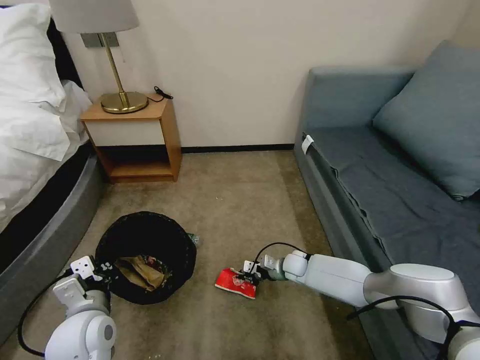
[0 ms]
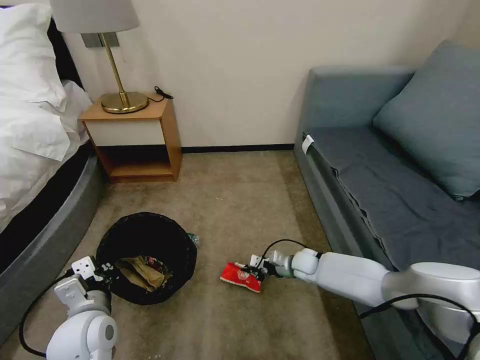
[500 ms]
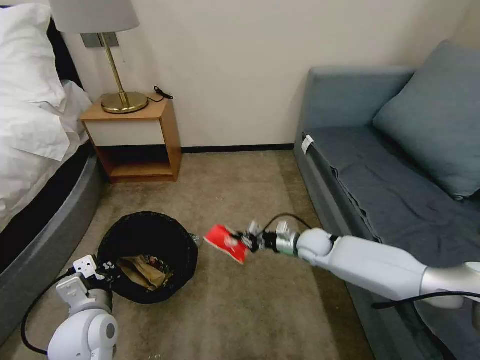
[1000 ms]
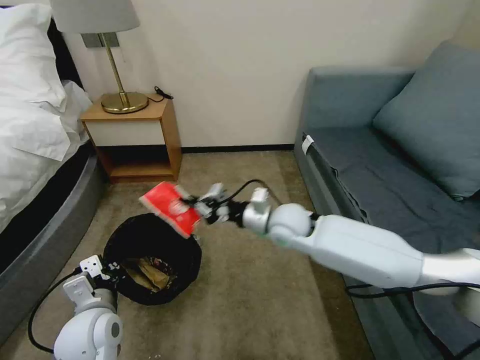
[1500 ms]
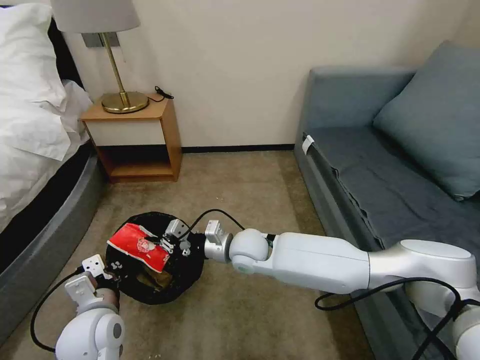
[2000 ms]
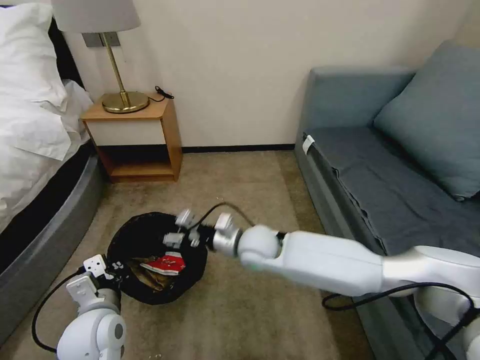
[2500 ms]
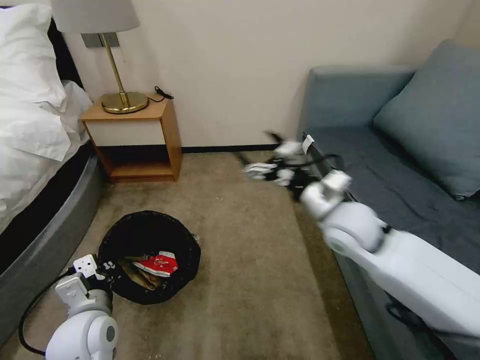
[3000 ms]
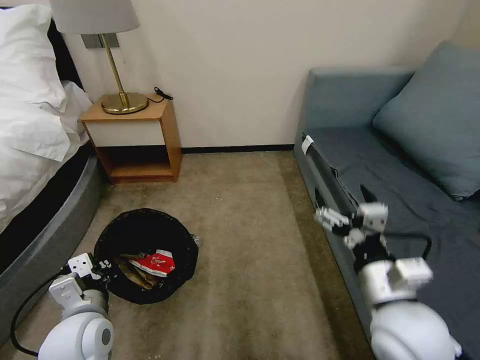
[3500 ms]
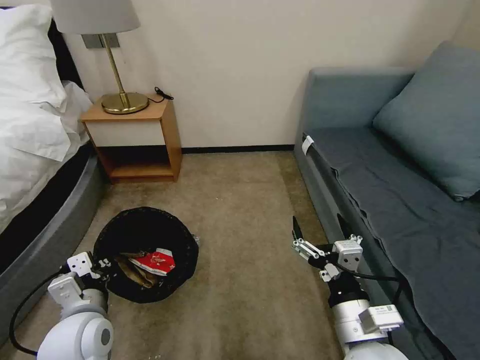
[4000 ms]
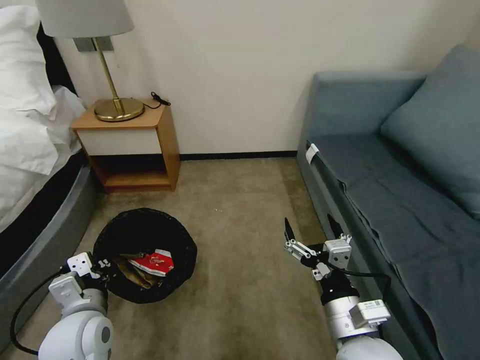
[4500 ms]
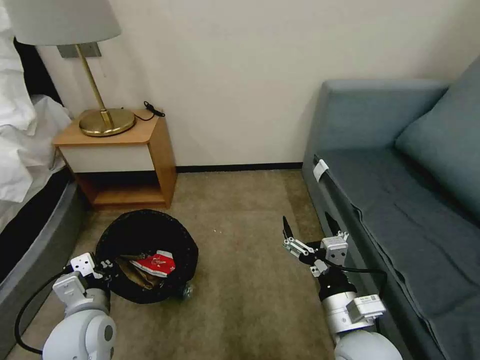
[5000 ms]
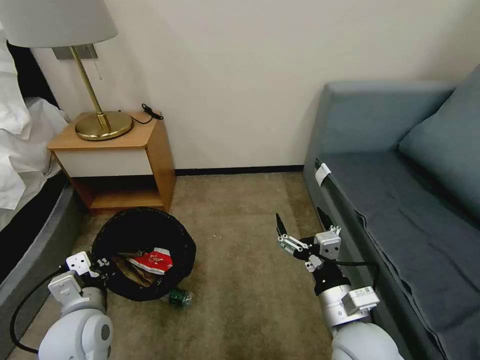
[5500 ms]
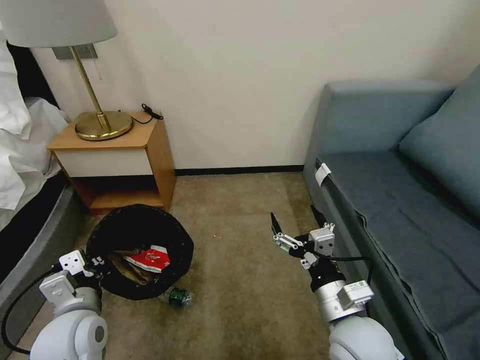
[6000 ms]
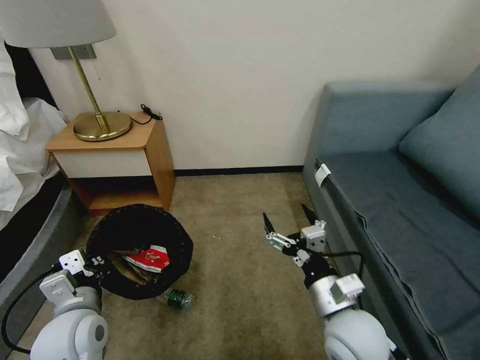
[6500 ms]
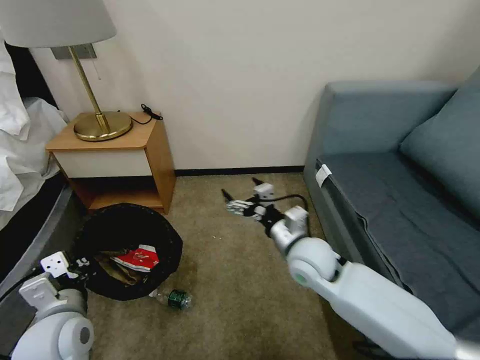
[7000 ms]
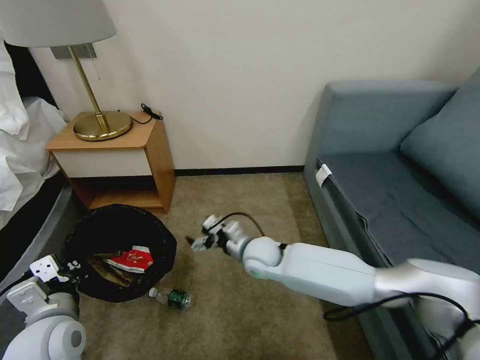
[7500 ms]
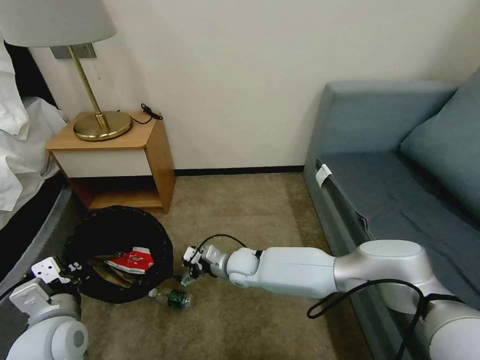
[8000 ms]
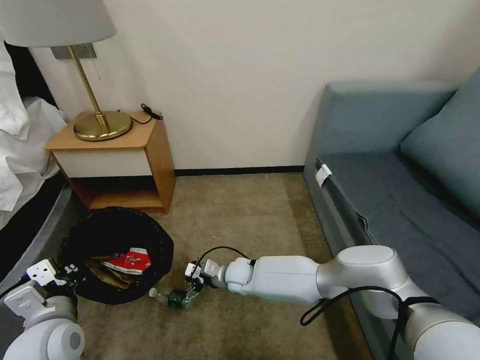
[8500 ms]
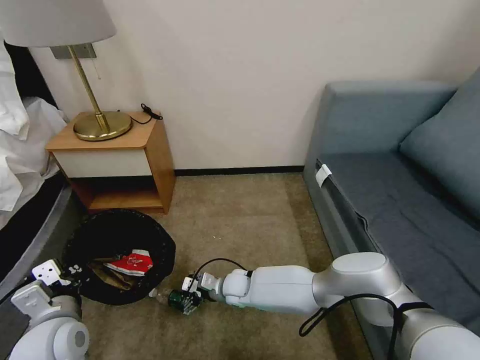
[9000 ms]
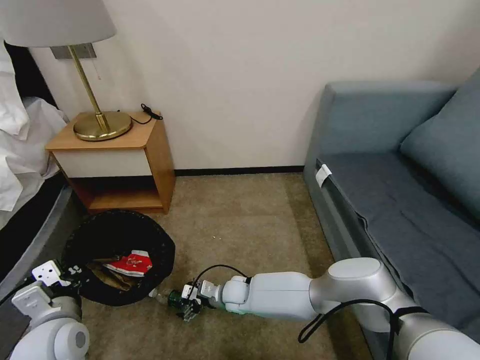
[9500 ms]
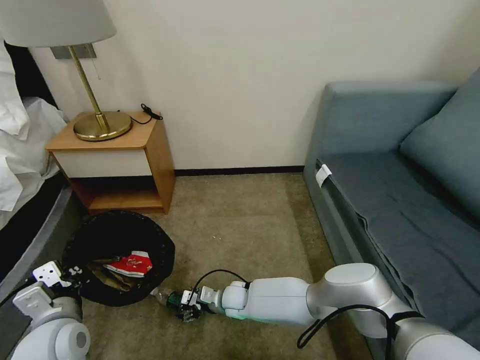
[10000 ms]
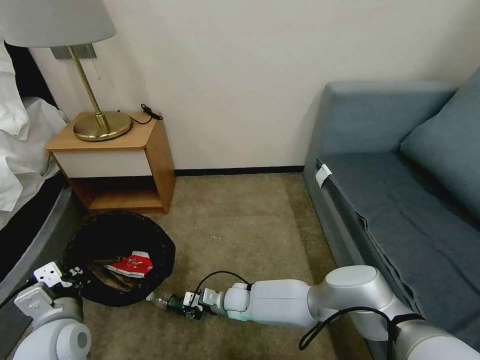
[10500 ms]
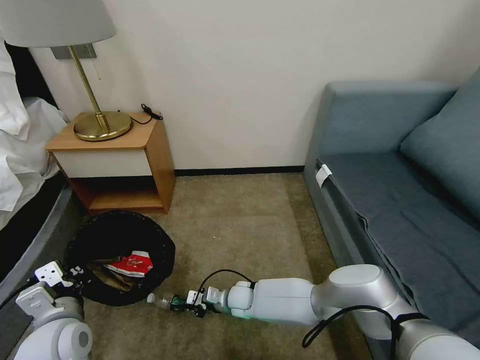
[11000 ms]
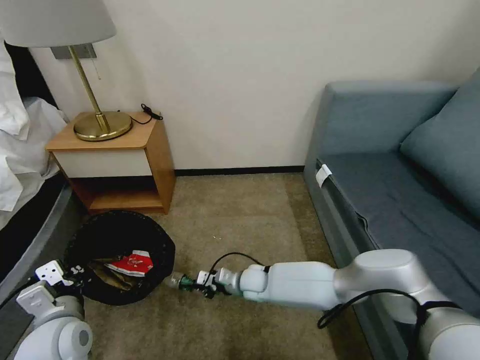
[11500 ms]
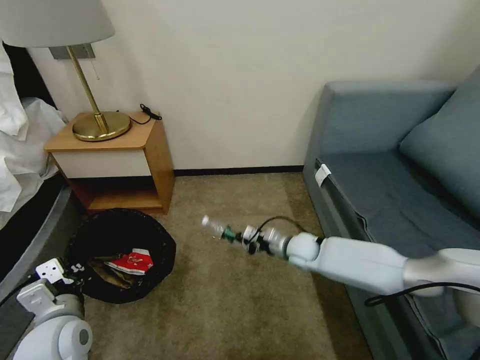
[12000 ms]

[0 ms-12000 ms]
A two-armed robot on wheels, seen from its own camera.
Task of the whole recording: Pick up the trash bin, then pick up the garbage on the floor and place it into the trash bin.
0 ms to 2000 ms: The right gripper heads upward and to the left, covering approximately 25 cm.
2000 ms to 4000 ms: The right gripper is displaced backward and to the right by about 30 cm, and opens up.
6000 ms to 8000 ms: The right gripper heads forward, to the left and downward, covering some 30 cm.
8000 ms to 10000 ms: The right gripper is displaced downward and backward by approximately 10 cm.
10000 ms to 12000 ms: The right gripper travels to the right, upward and forward by roughly 25 cm, and closes up.

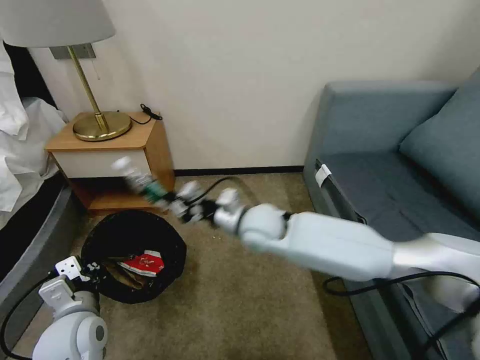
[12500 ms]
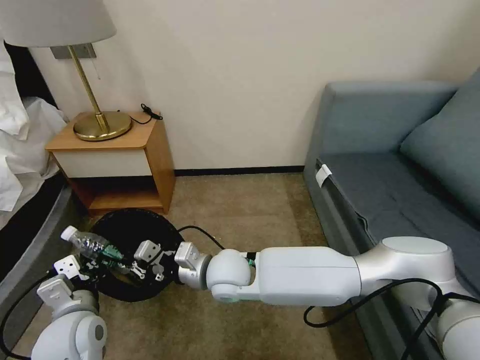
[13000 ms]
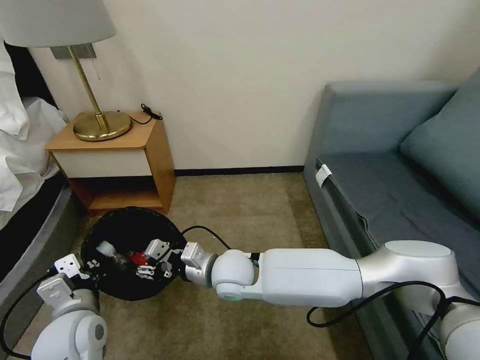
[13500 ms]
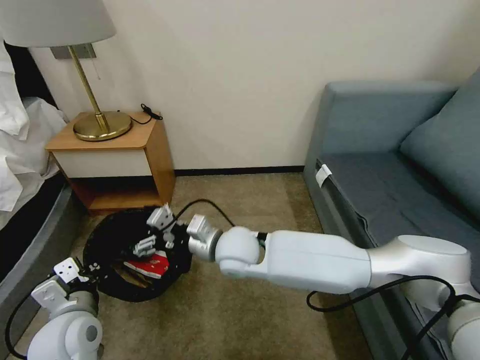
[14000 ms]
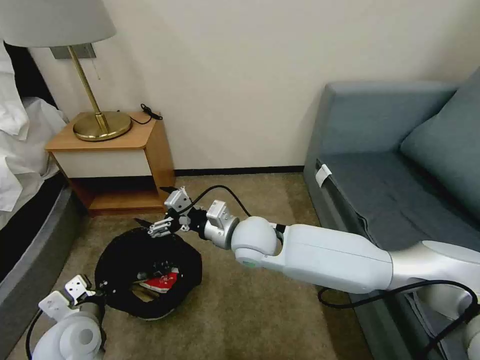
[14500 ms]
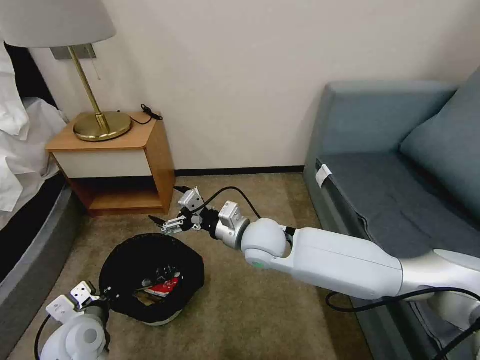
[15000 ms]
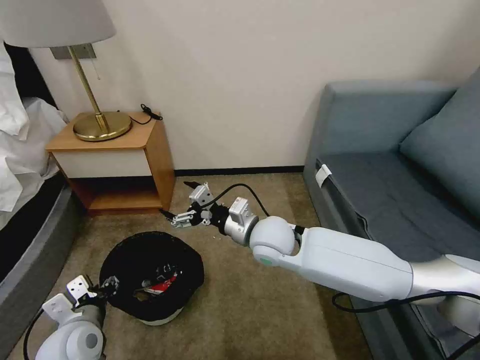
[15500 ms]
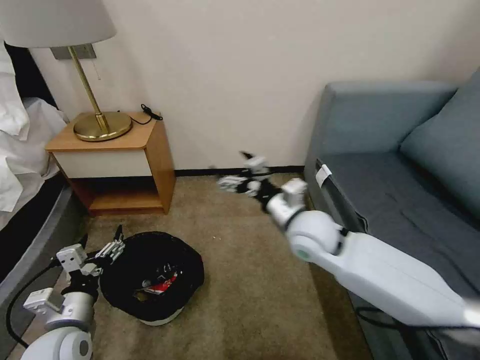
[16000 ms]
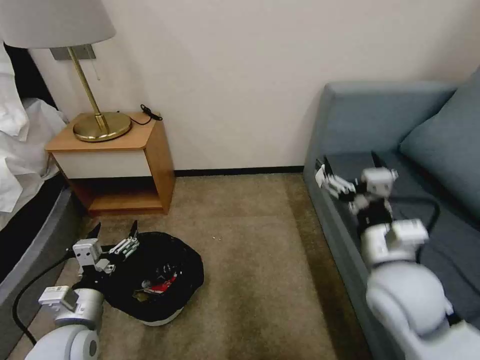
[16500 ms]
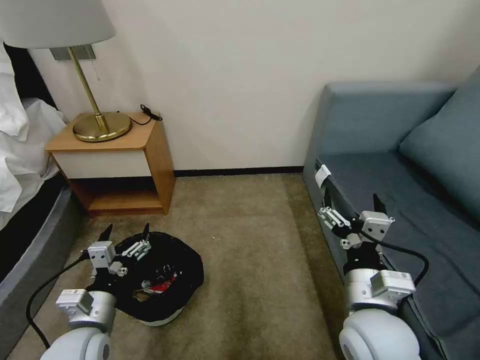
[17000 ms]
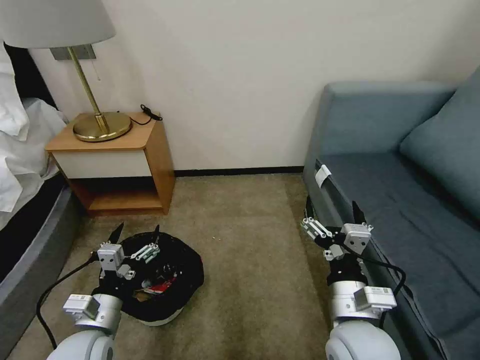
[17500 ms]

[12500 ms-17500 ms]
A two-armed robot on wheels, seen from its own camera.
Task of the whole recording: Pick up the trash bin, then pick up the garbage on the floor and place it into the trash bin.
12500 ms to 15000 ms: The left gripper changes place by about 5 cm. Meanwhile the right gripper opens up.
15000 ms to 17500 ms: The right gripper moves backward and to the right, some 25 cm. Meanwhile the left gripper opens its fingers.

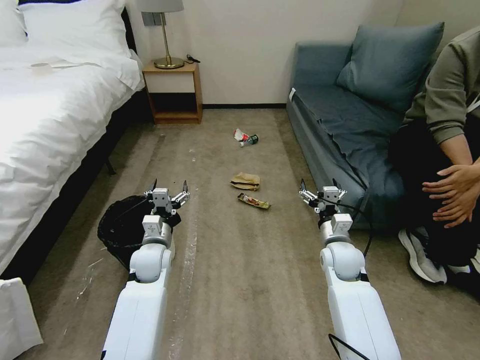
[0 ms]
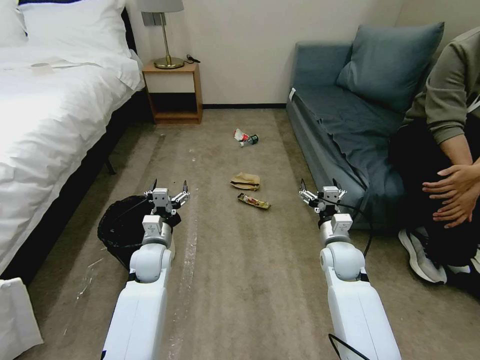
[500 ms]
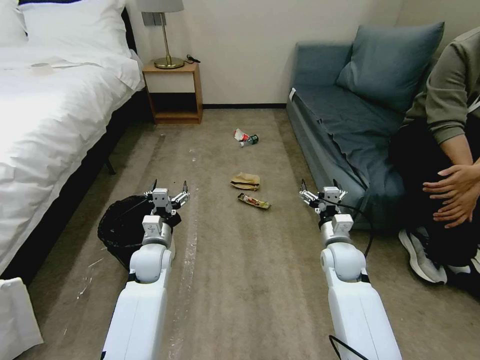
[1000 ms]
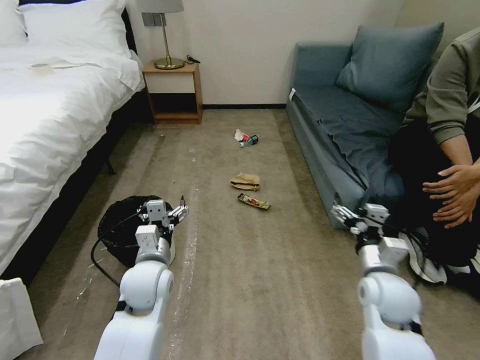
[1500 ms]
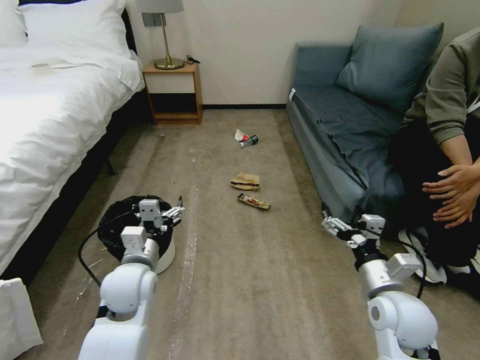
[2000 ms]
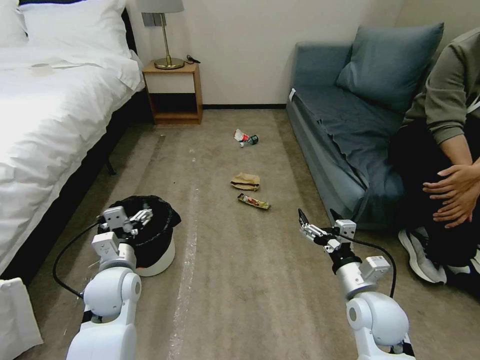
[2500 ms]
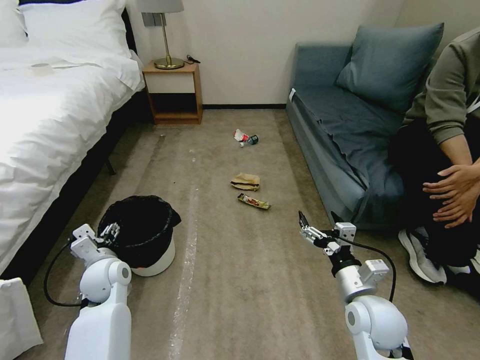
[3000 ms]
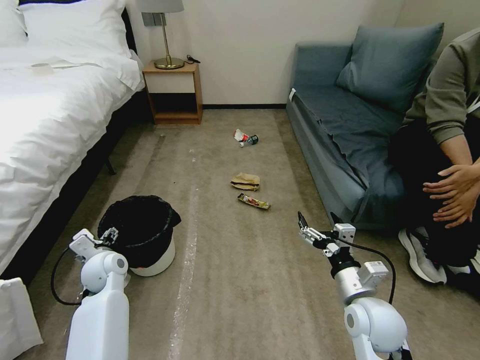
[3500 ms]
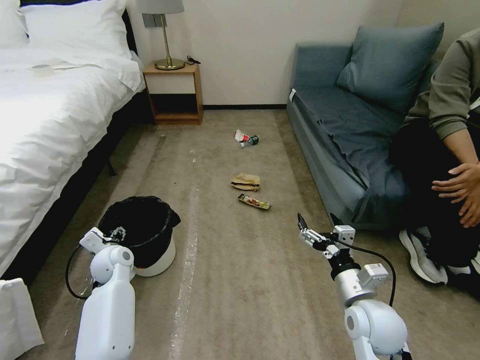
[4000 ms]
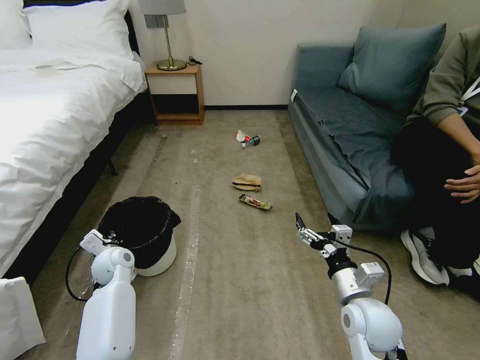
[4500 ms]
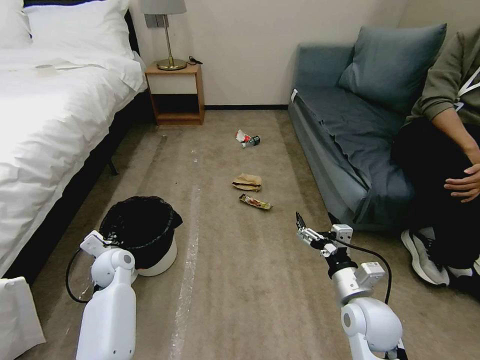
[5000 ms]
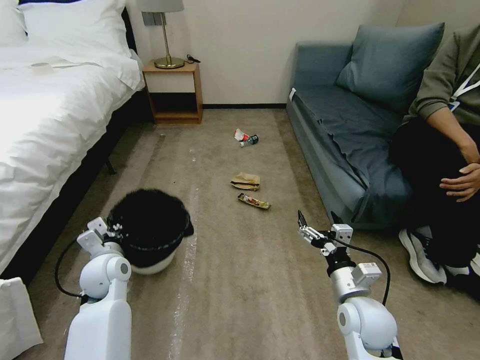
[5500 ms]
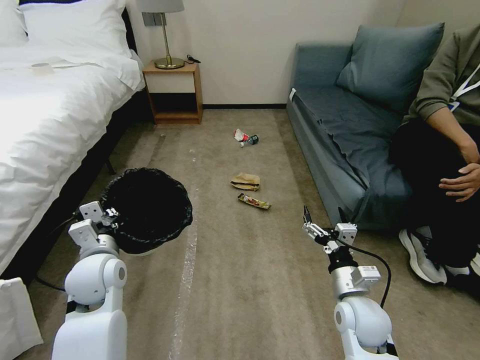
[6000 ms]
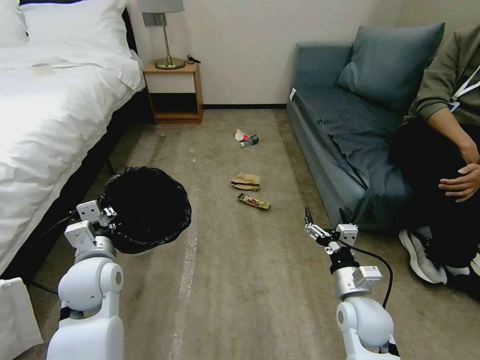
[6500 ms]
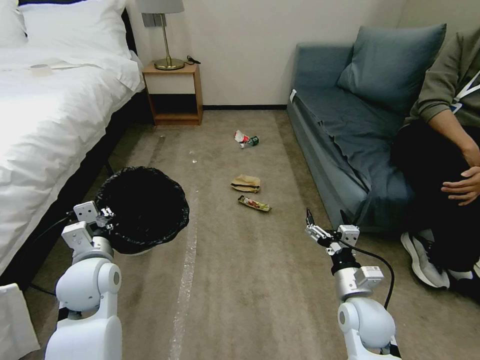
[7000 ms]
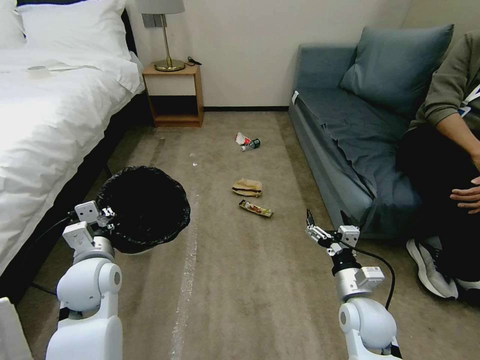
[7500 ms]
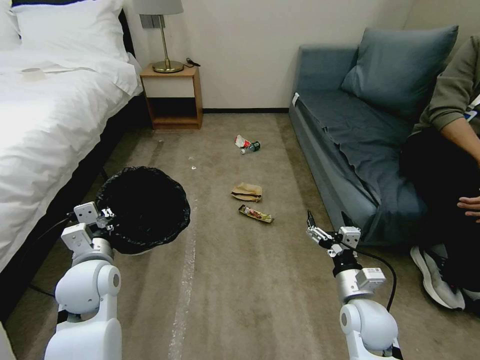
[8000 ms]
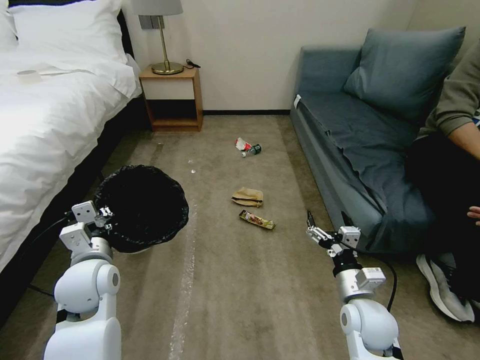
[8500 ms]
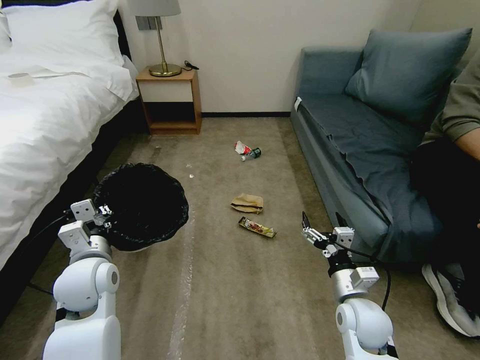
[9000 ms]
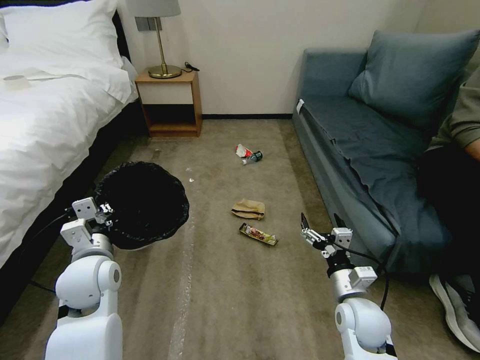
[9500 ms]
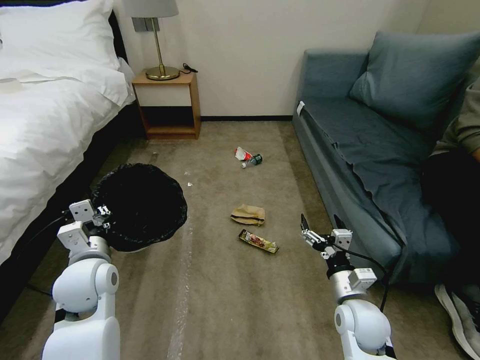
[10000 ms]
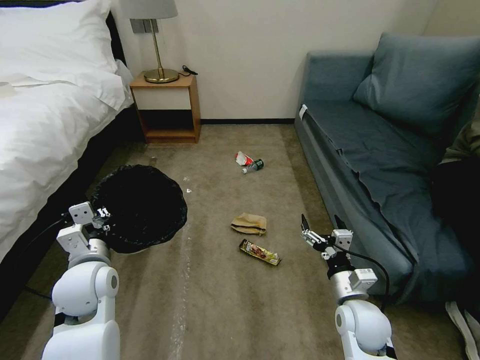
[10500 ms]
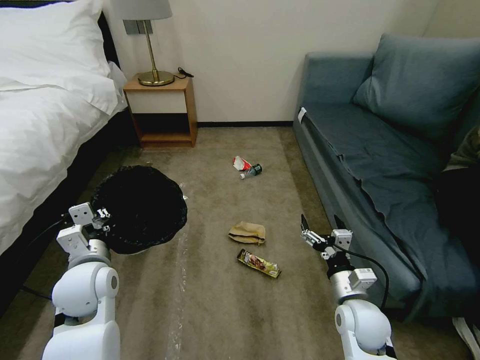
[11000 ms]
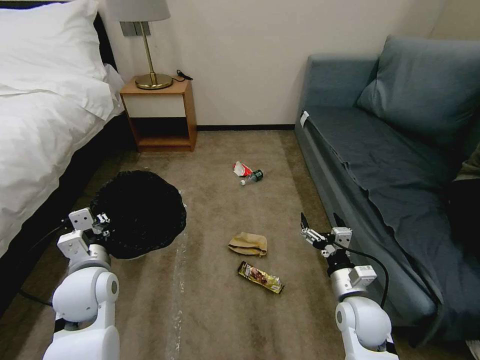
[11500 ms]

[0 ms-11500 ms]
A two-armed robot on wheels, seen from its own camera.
Task of the whole recording: Pick up the trash bin, then pick up the garbage on the floor and place it into the trash bin.
2000 ms to 4000 ms: The left gripper is displaced to the left, forward and downward by roughly 15 cm.
4000 ms to 6000 ms: The left gripper shifts approximately 15 cm upward and backward, and closes up.
6000 ms to 7500 ms: Both grippers stay put.
